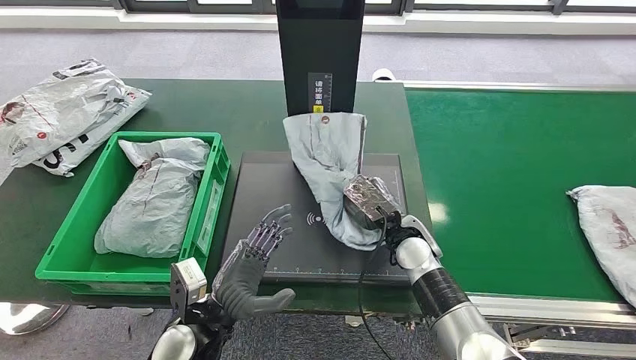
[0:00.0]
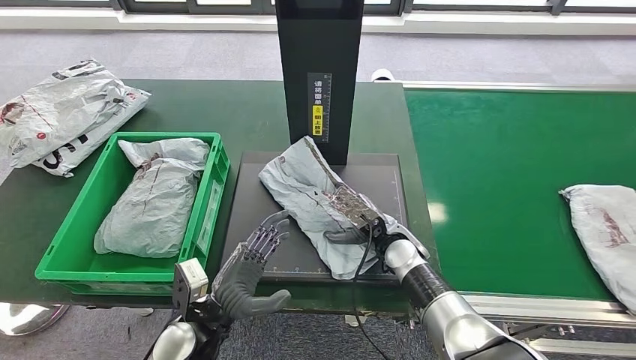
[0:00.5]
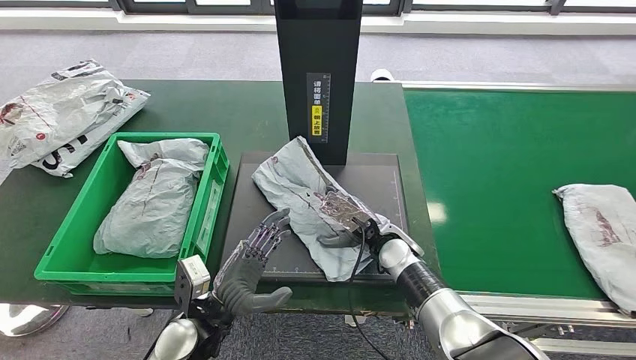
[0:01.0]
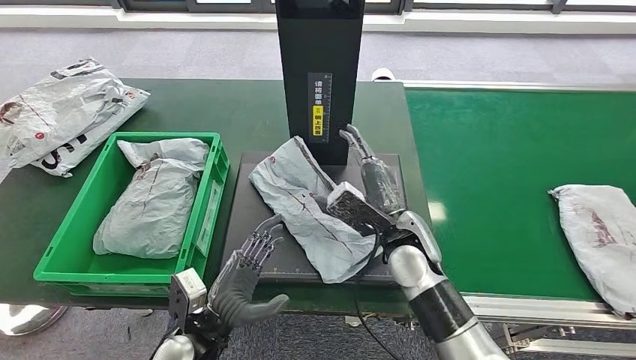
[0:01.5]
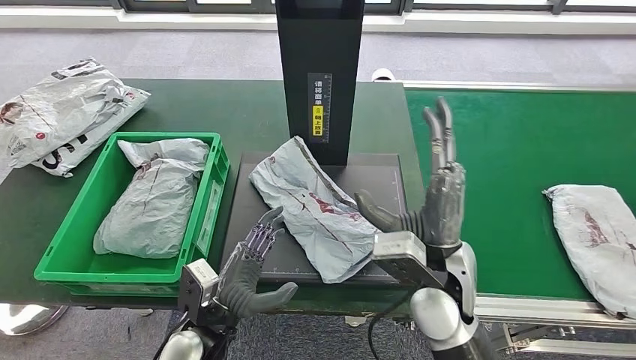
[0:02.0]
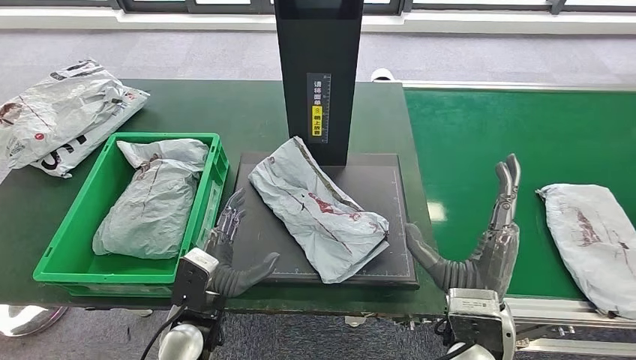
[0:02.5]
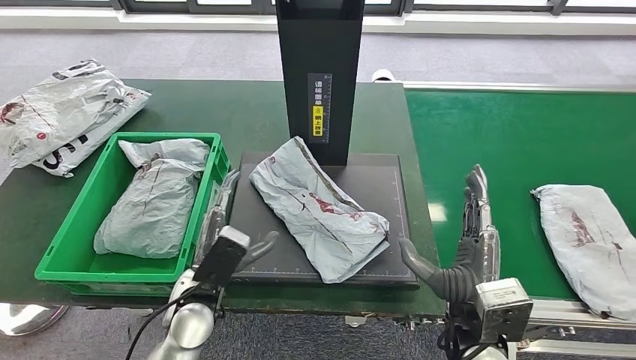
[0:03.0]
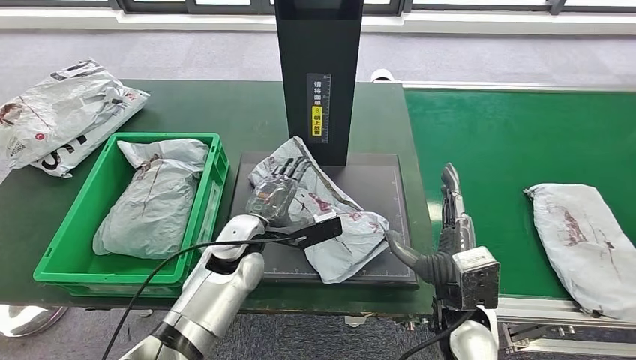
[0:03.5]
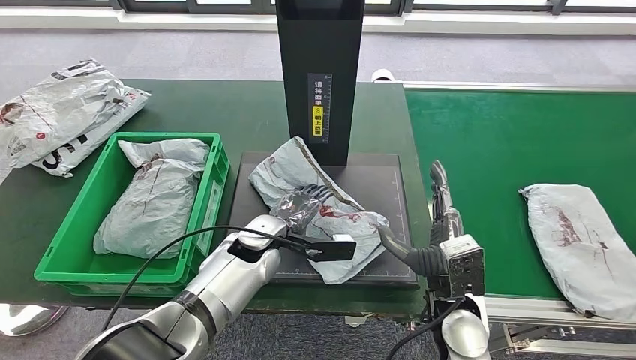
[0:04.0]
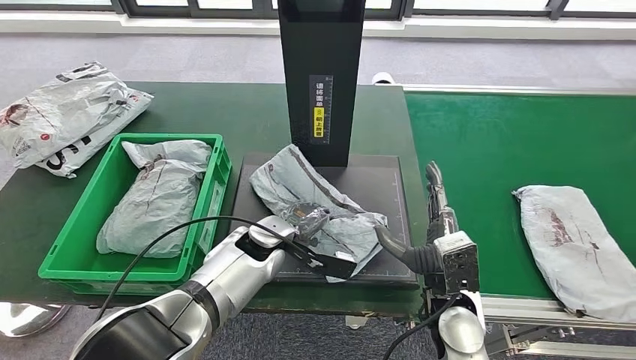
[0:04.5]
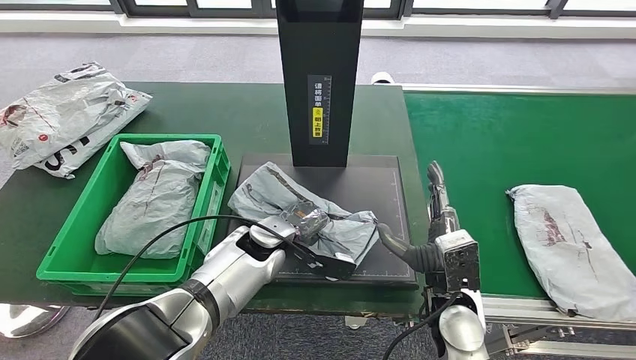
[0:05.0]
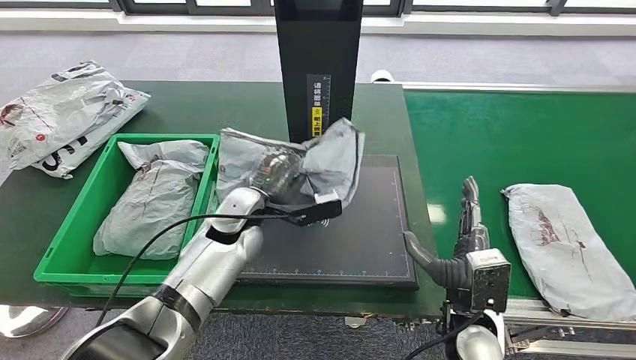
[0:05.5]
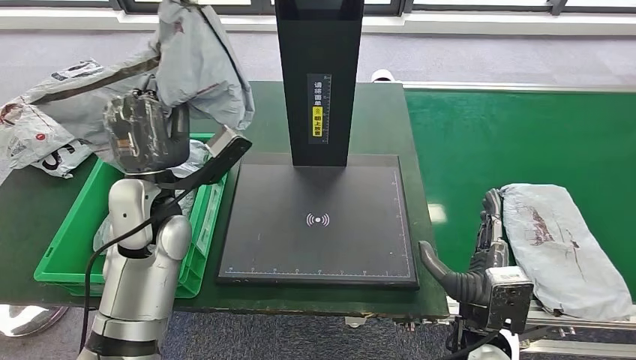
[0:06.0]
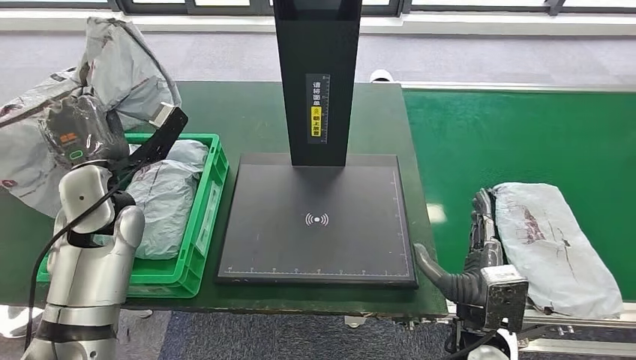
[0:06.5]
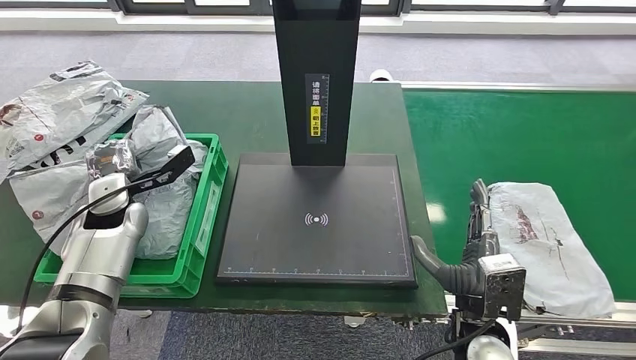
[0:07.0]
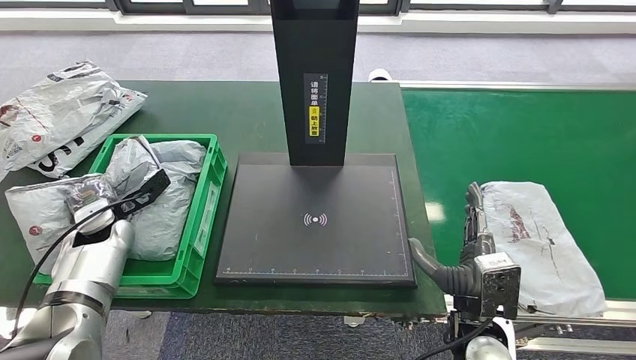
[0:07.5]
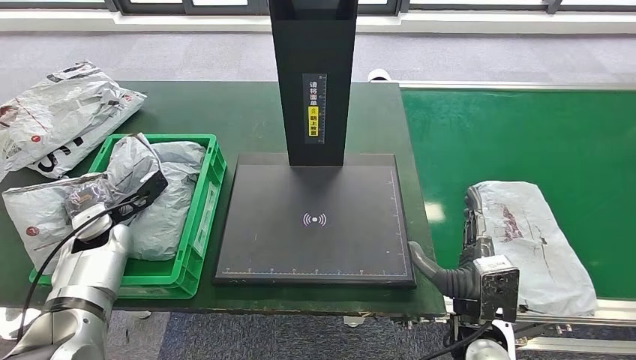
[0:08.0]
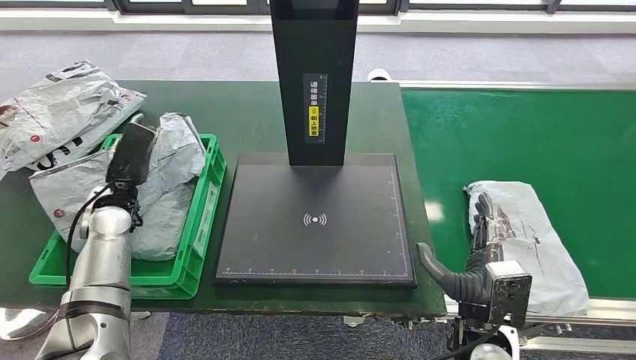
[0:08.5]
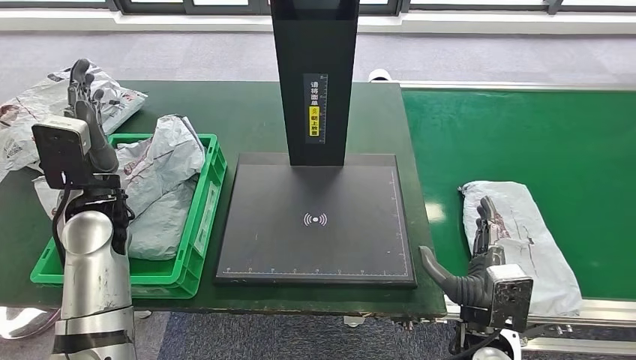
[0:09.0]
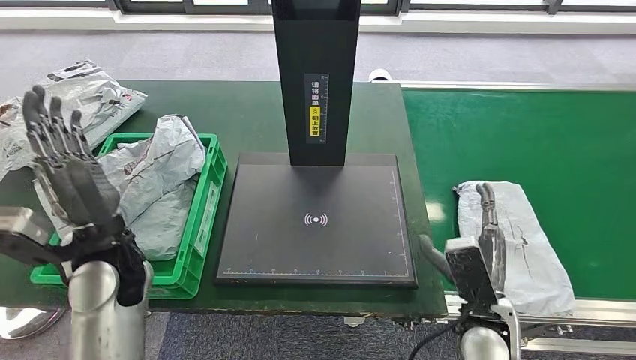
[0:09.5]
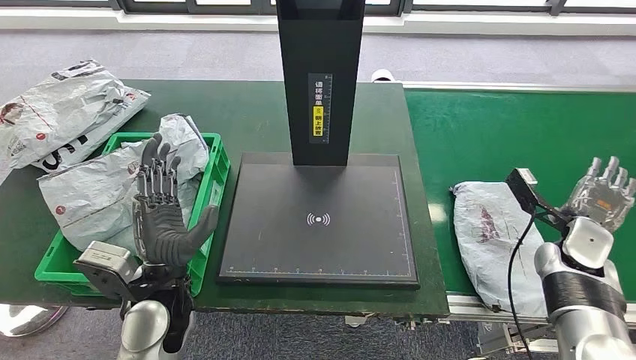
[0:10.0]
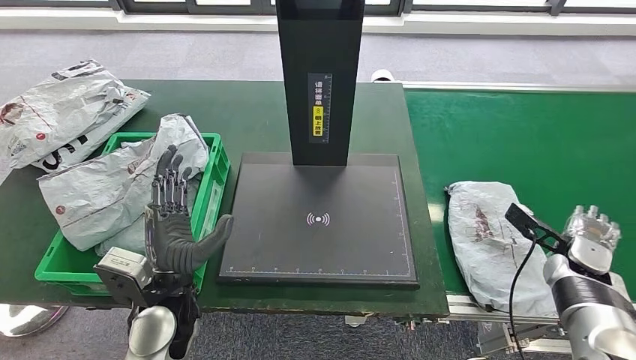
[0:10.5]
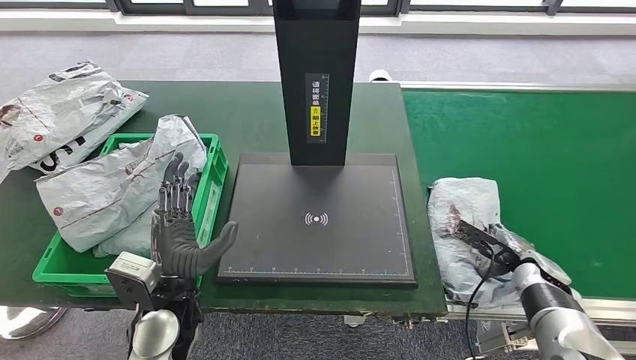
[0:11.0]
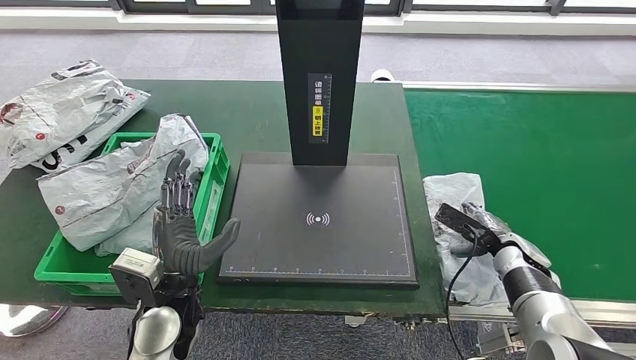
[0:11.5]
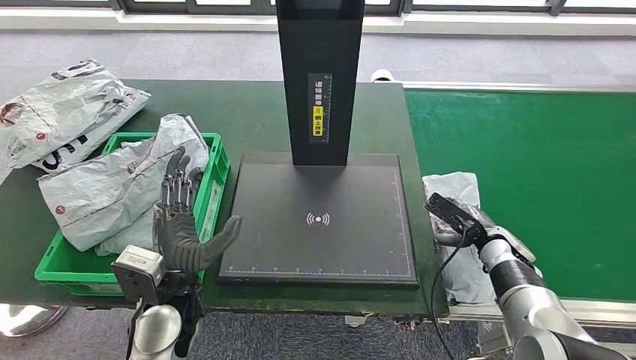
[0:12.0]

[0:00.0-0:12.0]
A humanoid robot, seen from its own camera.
Step, 0:00.0 to 0:01.5: Place the parcel onto the inbound machine.
Step, 0:02.0 to 0:05.5: Pick up the parcel from the inbound machine.
Step, 0:06.5 to 0:09.5: Place the parcel into the delivery box.
0:00.0 to 0:02.0: The right hand shifts approximately 15 cm upward and backward.
0:02.0 to 0:04.0: The left hand is displaced forward and to the right by some 15 cm. The right hand goes about 10 cm downward.
0:10.0 to 0:12.0: The right hand travels to the left and downward by about 10 cm.

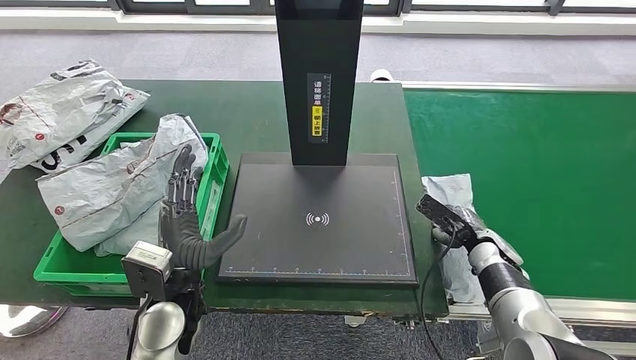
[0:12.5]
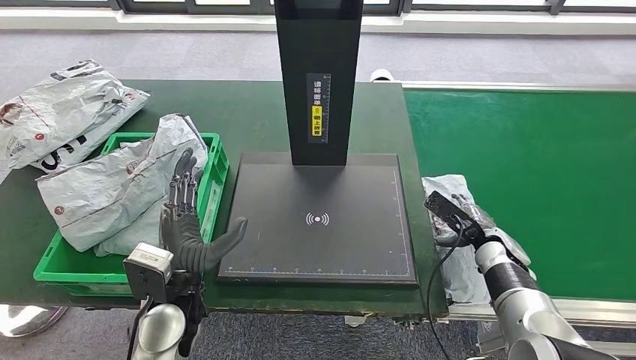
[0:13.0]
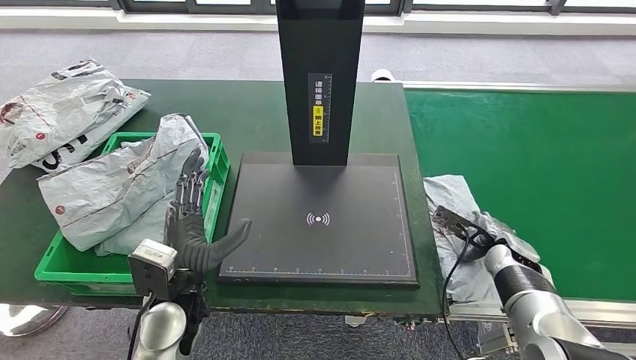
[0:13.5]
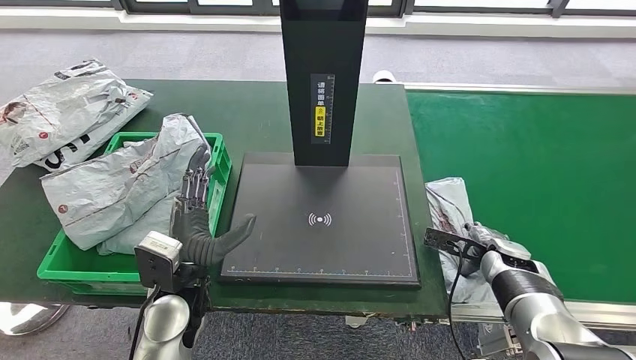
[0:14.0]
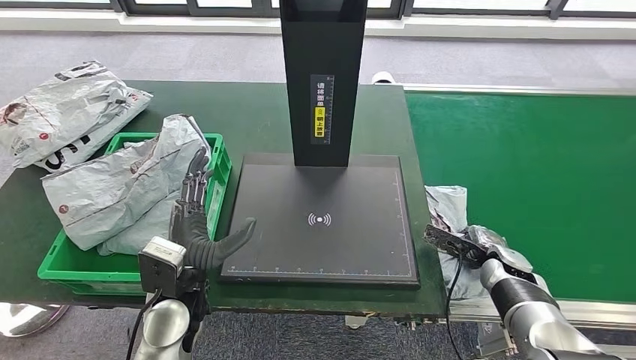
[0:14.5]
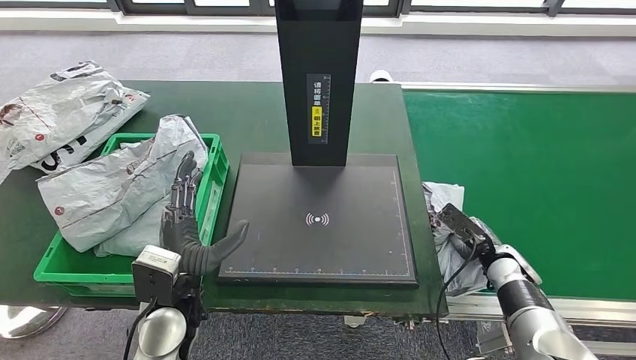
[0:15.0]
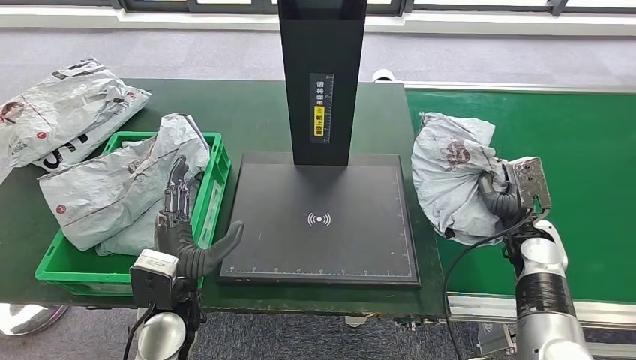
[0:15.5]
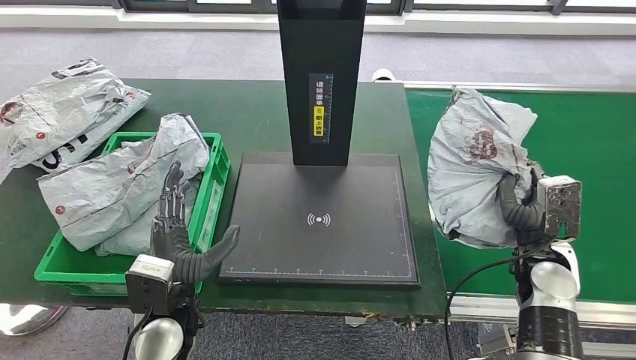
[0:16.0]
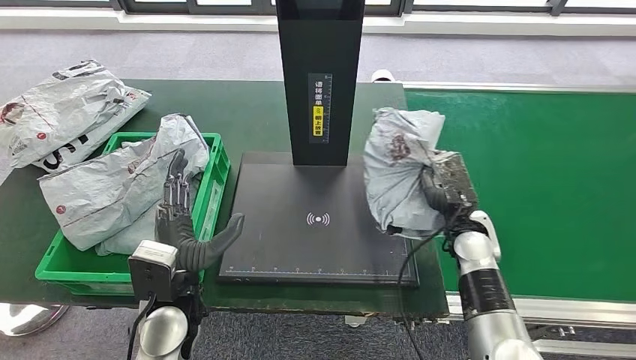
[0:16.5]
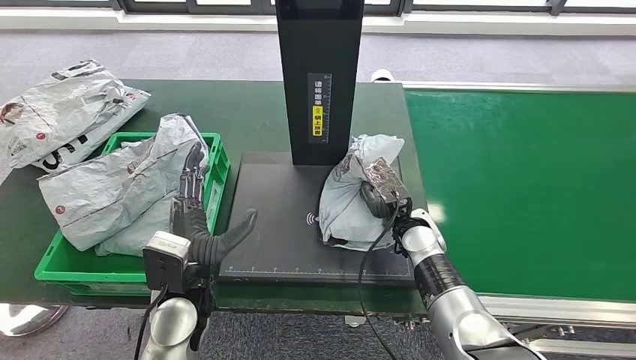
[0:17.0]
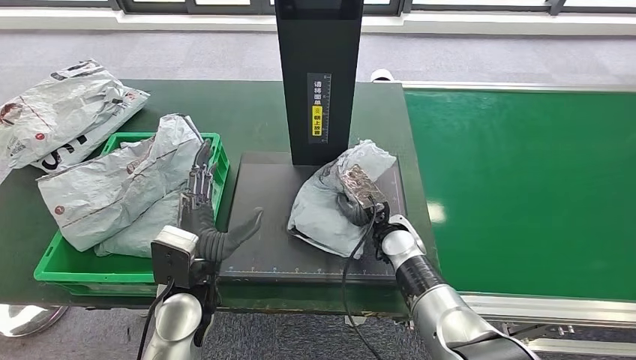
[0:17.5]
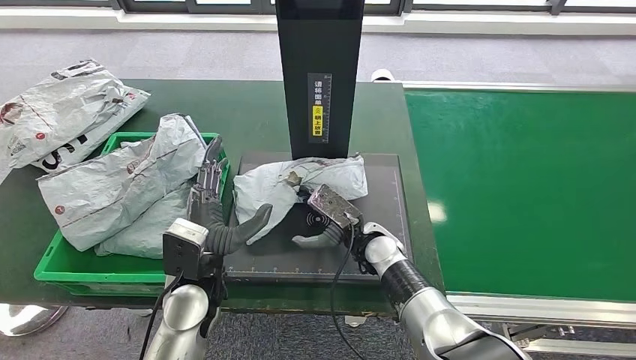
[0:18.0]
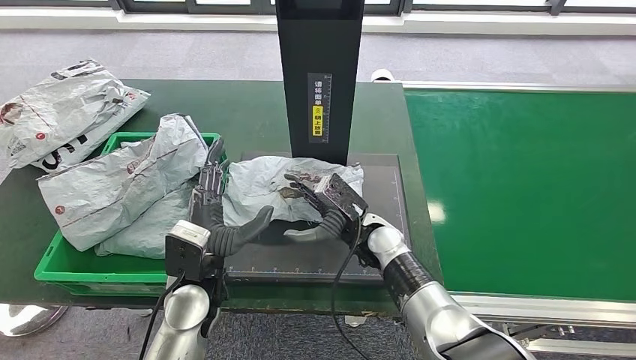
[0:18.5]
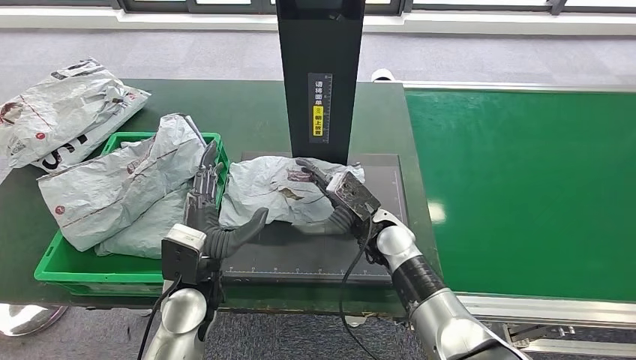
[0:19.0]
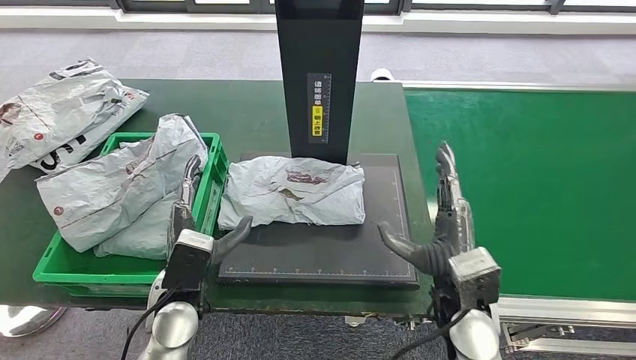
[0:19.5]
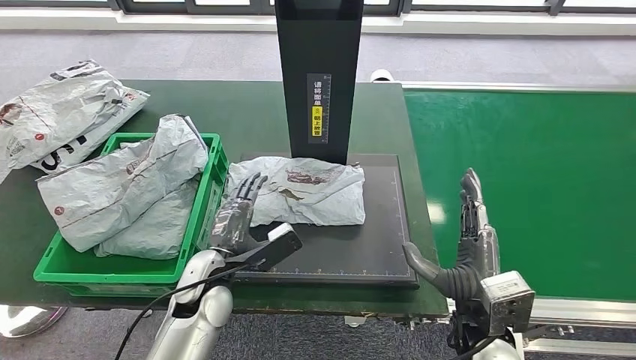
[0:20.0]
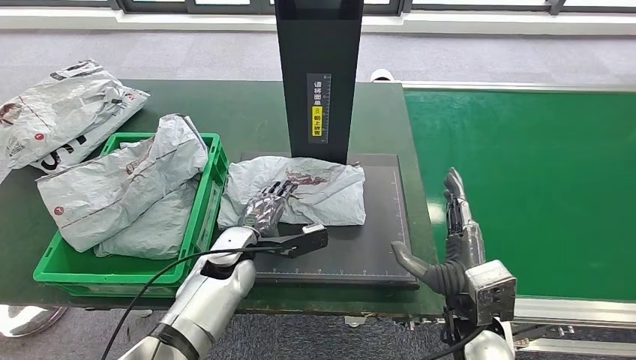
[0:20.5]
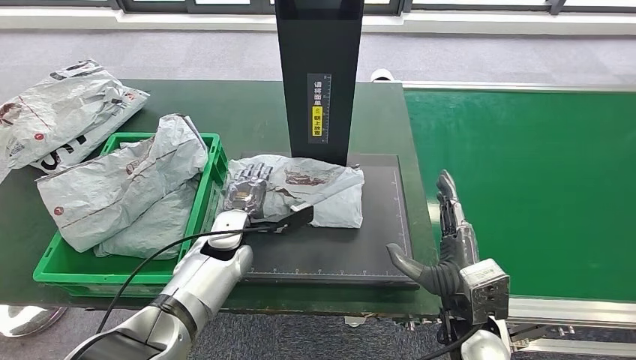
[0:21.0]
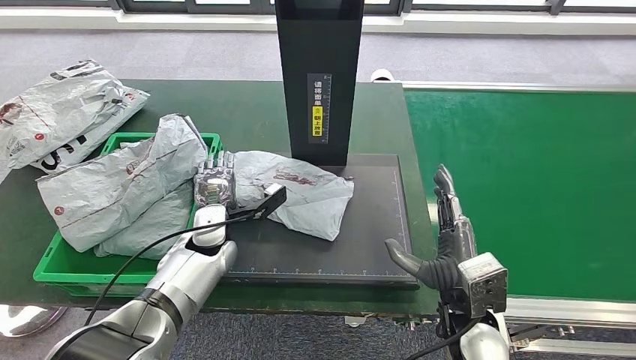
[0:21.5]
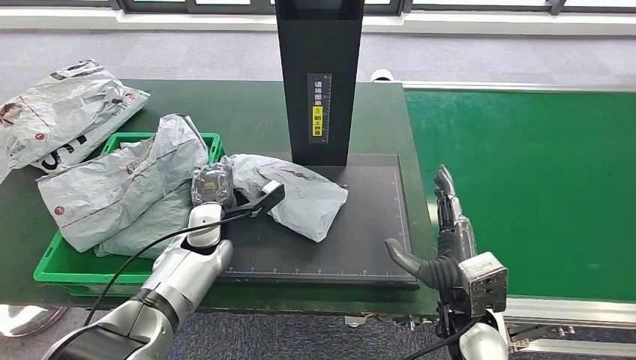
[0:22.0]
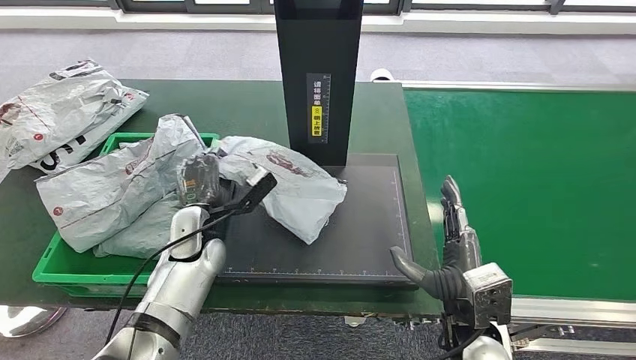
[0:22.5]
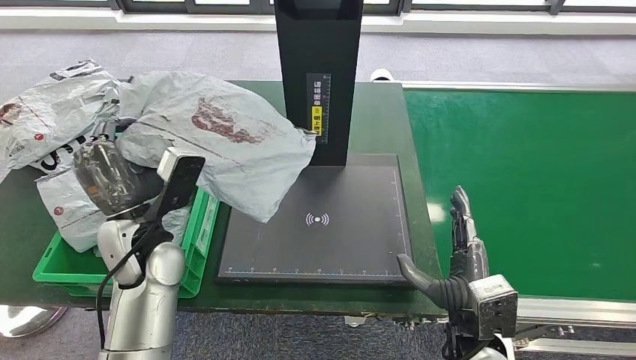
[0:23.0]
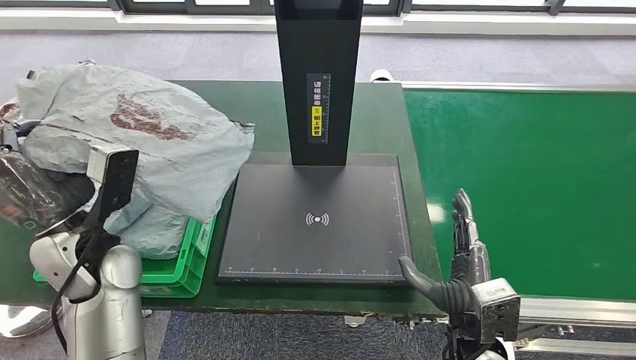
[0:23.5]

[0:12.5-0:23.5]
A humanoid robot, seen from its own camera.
Step, 0:12.5 to 0:16.0: Pick up the parcel from the conveyor belt.
Step, 0:16.5 to 0:18.5: Place the parcel onto the inbound machine.
Step, 0:19.0 to 0:22.5: Pick up the parcel from the inbound machine.
0:18.0 to 0:20.0: The right hand shifts approximately 20 cm backward and to the right.
0:20.0 to 0:21.5: The left hand heads forward, covering some 10 cm.
